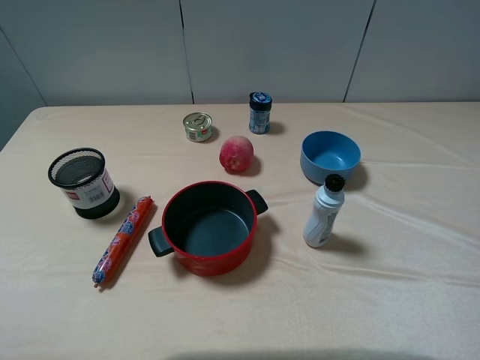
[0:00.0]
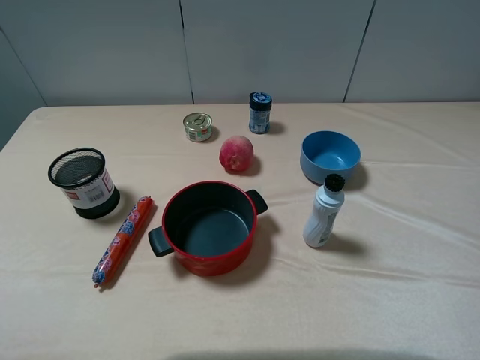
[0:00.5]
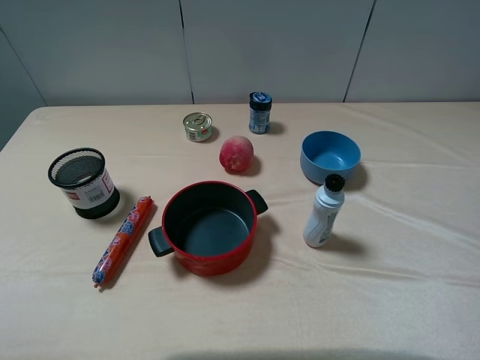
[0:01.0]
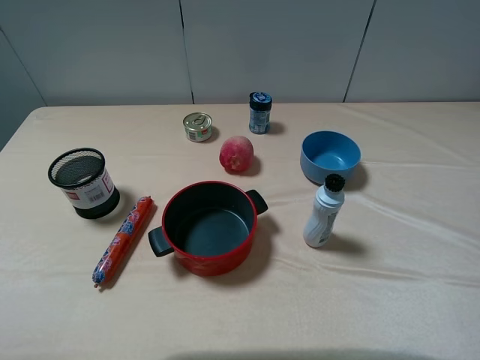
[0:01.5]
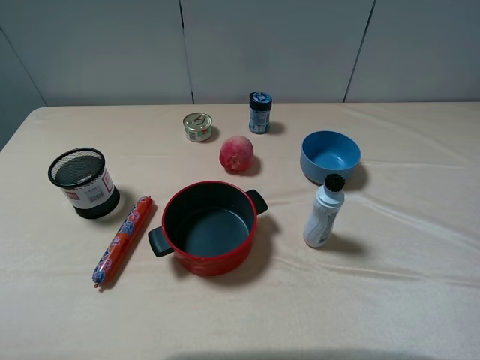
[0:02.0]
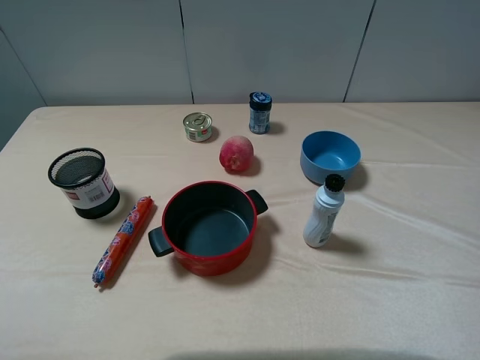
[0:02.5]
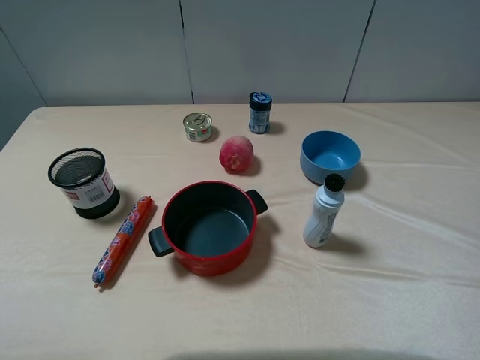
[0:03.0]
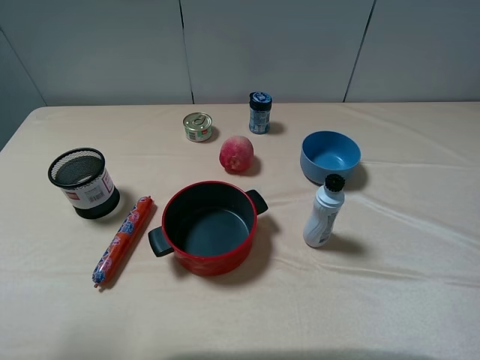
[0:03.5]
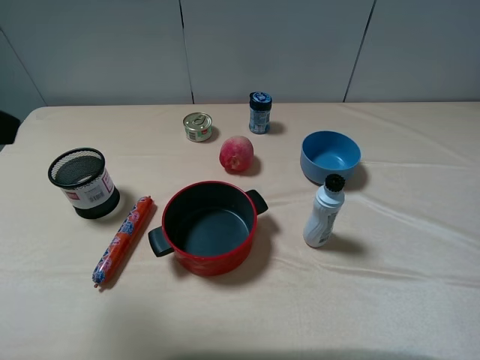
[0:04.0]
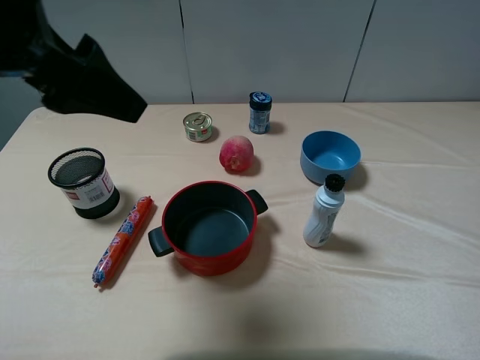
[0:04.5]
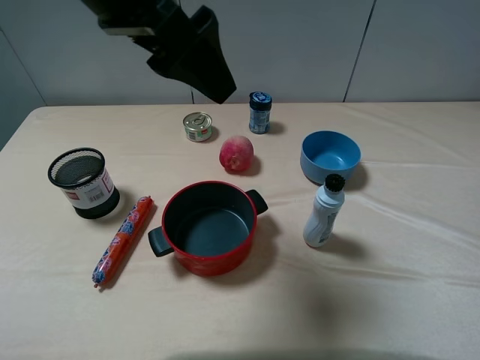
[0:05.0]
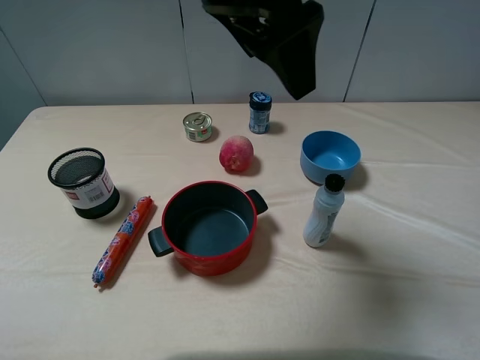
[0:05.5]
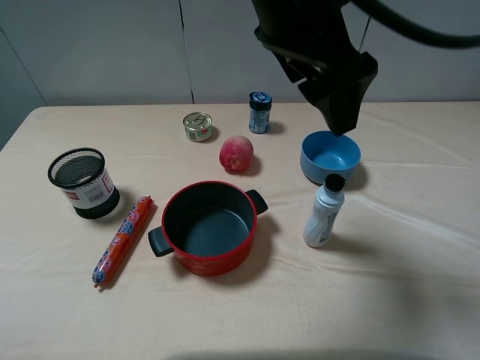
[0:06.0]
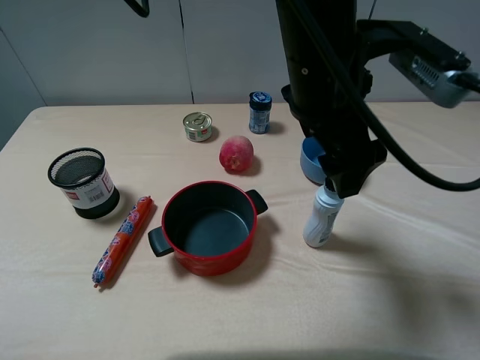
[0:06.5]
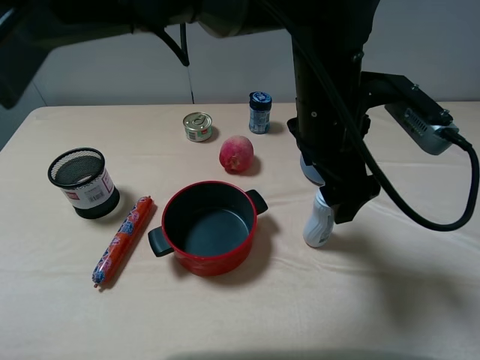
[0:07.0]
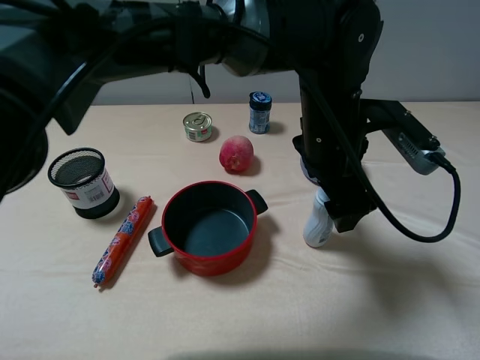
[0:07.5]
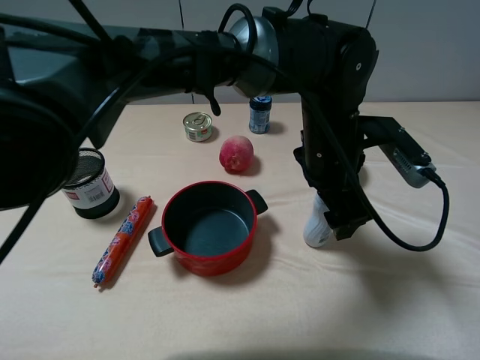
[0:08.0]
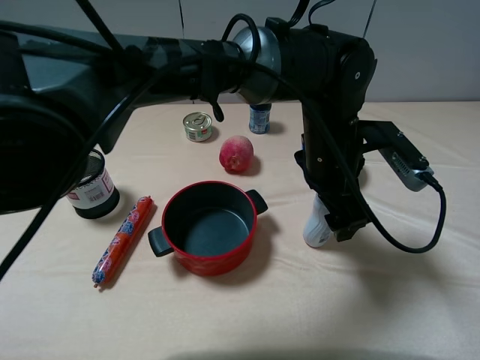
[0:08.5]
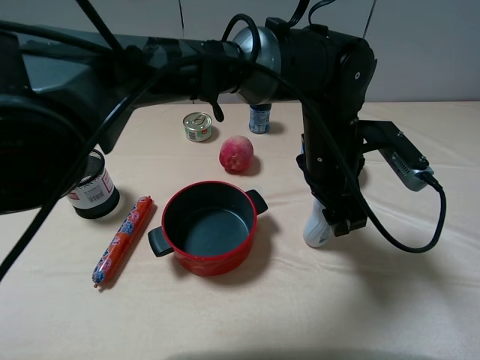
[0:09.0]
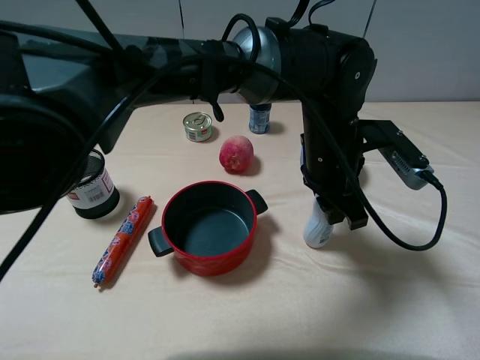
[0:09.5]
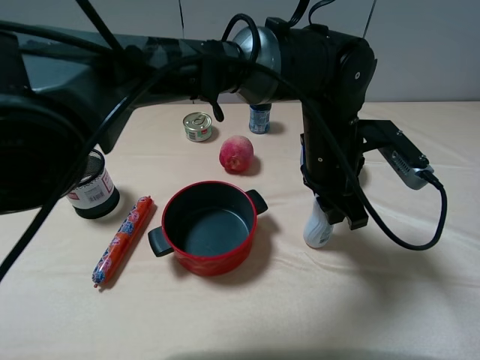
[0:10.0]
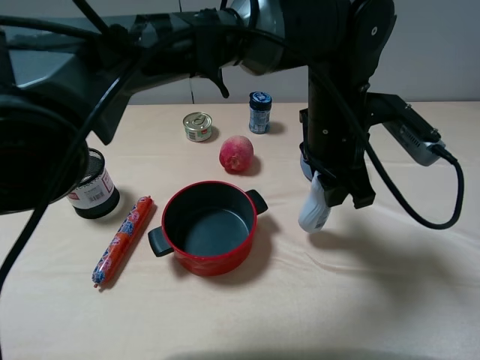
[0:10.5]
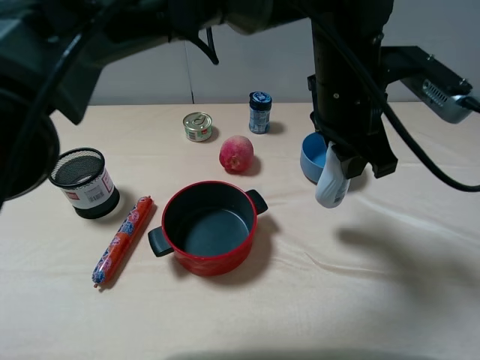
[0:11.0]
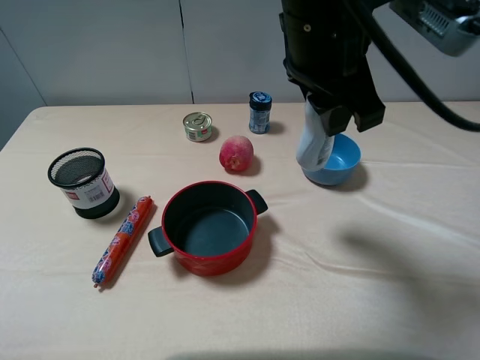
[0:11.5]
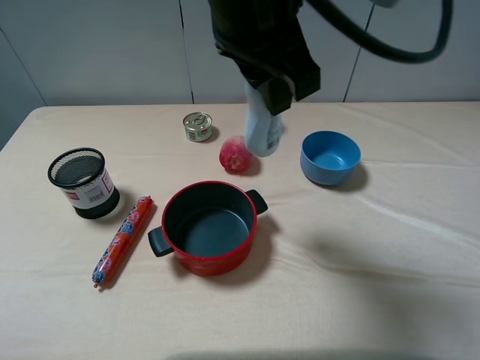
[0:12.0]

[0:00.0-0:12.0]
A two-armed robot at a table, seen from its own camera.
Task of the whole recording: pick up an item with a gripper and place it in a random container on the table.
Step, 0.0 to 9.5 s: Grasp the cleaning agent with the left gripper.
0.0 to 2.0 s: The two grippers keep their place.
2.0 to 4.0 s: The left gripper moves forward and upward, some 15 cm.
4.0 to 6.0 s: The left gripper shifts some 35 cm to the right and forward.
6.0 to 8.0 s: The left gripper travels downward and to the right by about 20 cm.
8.0 to 10.0 s: The left gripper closes.
10.0 to 12.0 s: The left gripper moves upward and to the left, roughly 20 cm.

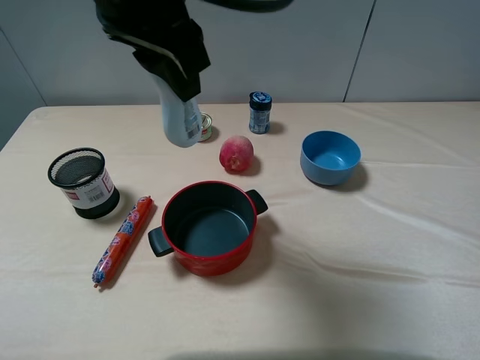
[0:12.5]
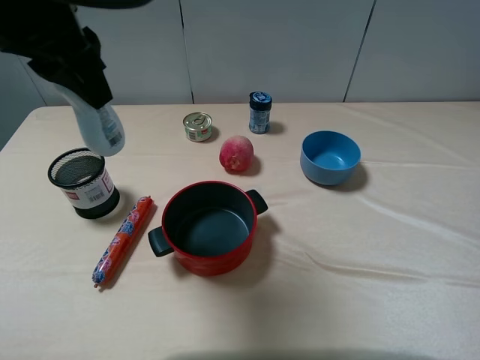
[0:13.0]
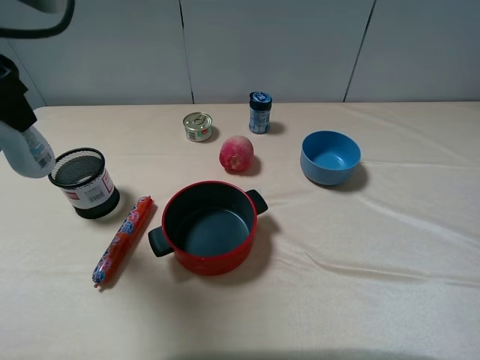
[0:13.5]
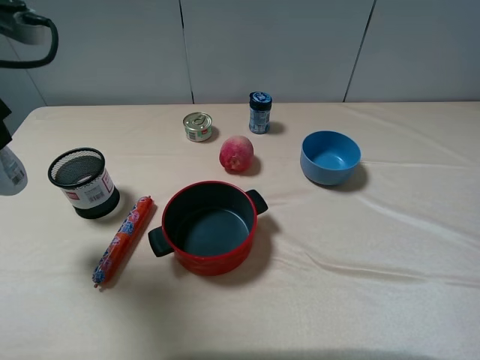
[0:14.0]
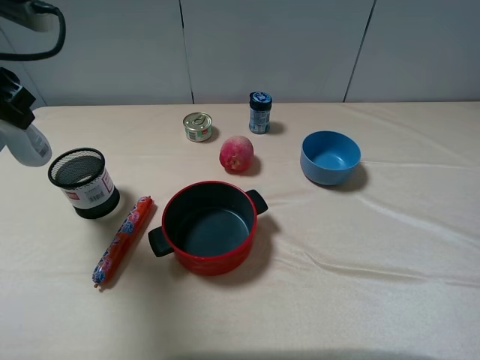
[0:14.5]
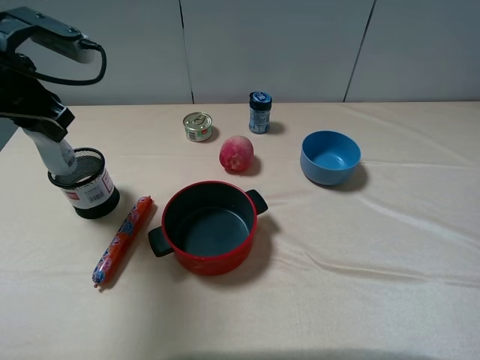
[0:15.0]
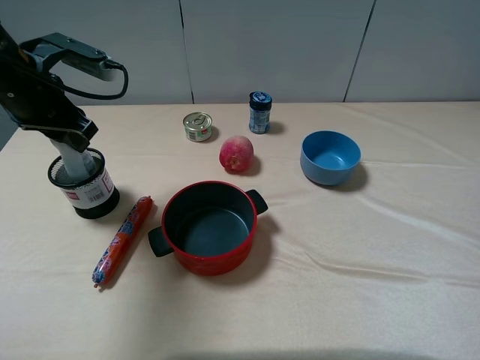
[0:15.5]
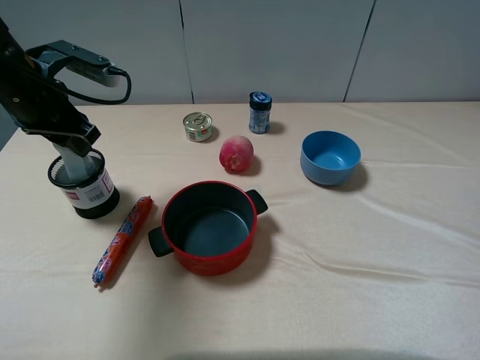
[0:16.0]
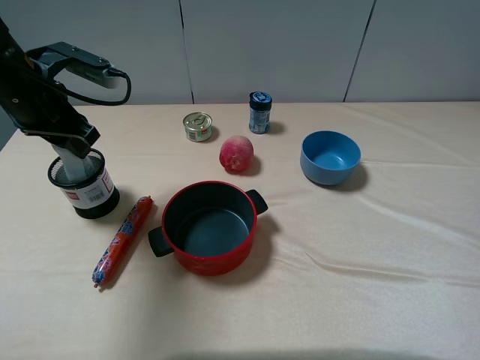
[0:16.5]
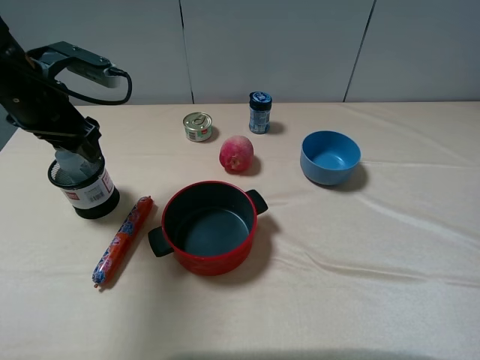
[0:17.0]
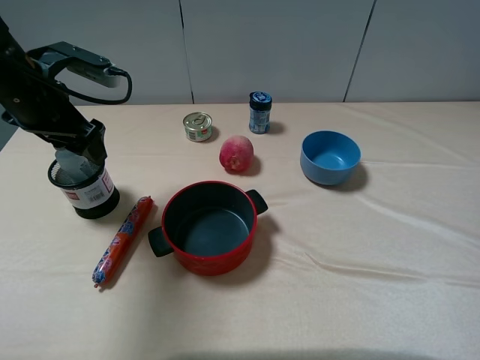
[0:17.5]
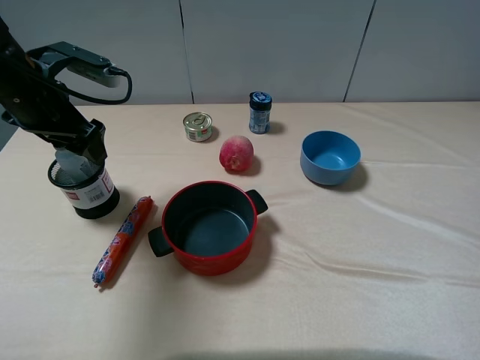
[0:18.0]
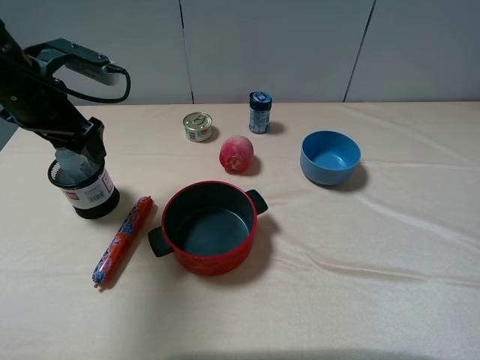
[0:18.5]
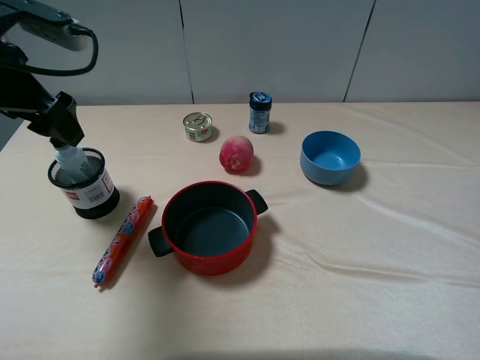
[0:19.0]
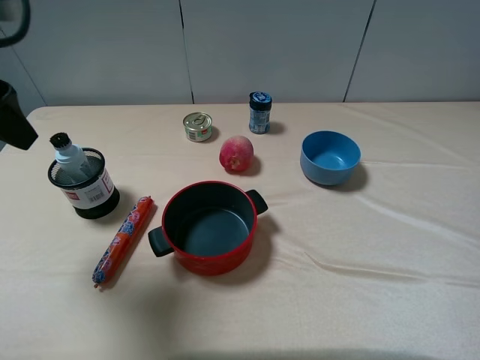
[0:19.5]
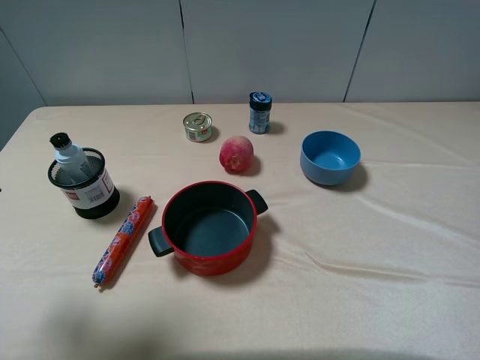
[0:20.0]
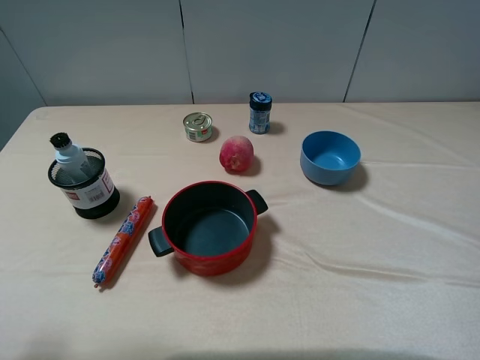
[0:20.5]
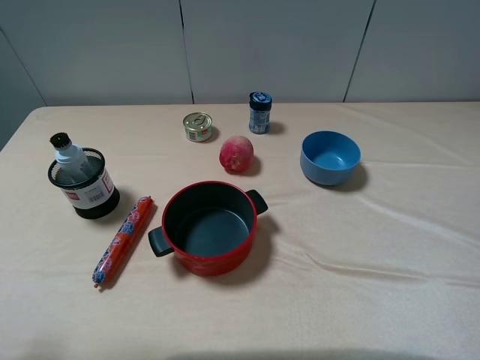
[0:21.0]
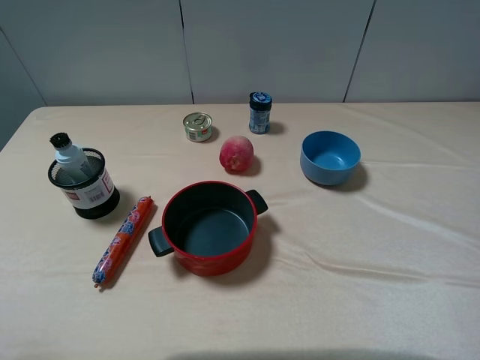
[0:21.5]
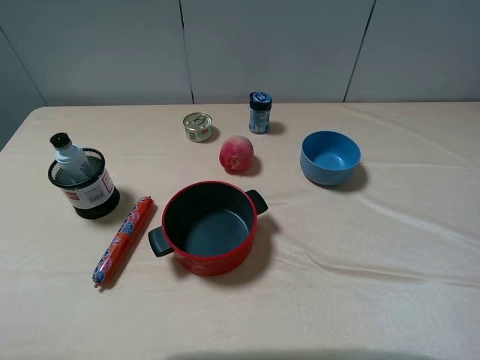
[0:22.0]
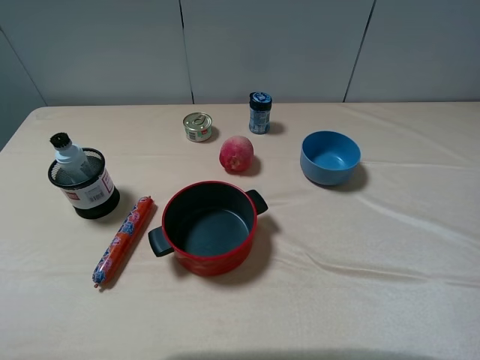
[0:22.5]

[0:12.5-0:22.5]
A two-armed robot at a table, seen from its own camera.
Task of the whole recording: pick up an item with a gripper and place it in a random container on the table.
Step, 12.5 to 17.0 s: Place the cleaning agent into the pen container with the left gripper.
12.5 to 14.5 s: The left gripper goes approximately 20 cm to the left.
14.5 to 16.5 s: The left gripper travels downward and forward by about 10 cm.
16.5 to 18.5 s: The left gripper opens up.
18.5 to 20.5 s: The left gripper travels backward by roughly 25 cm.

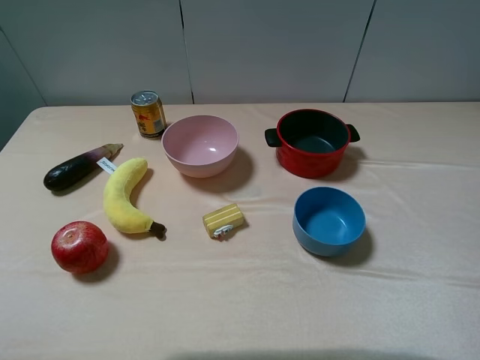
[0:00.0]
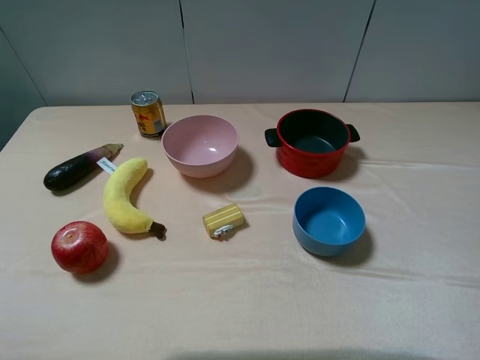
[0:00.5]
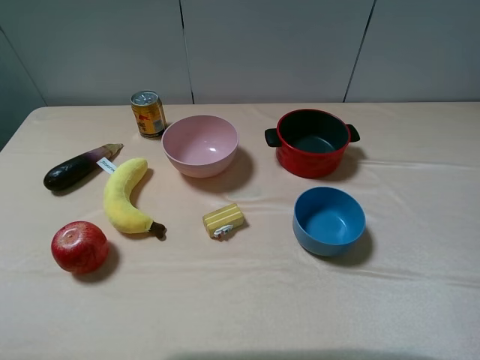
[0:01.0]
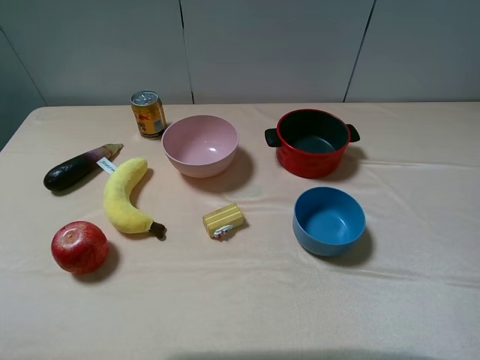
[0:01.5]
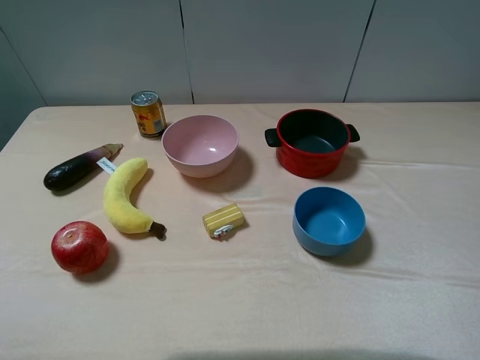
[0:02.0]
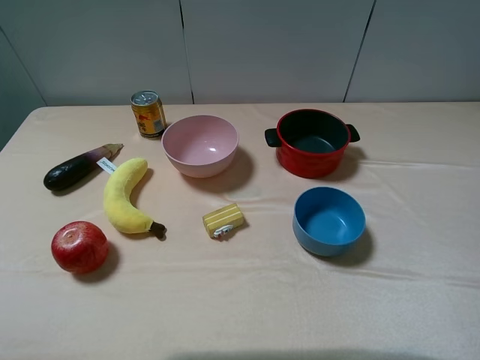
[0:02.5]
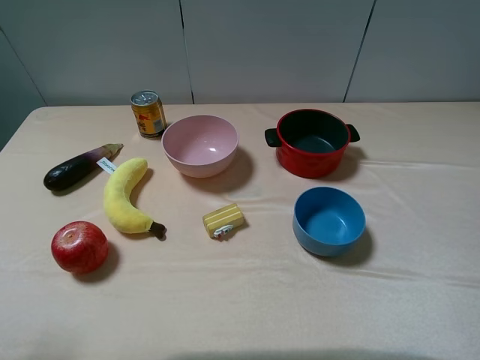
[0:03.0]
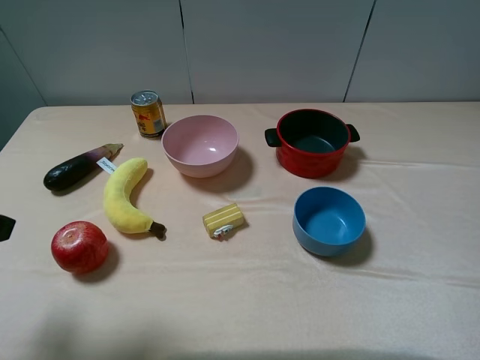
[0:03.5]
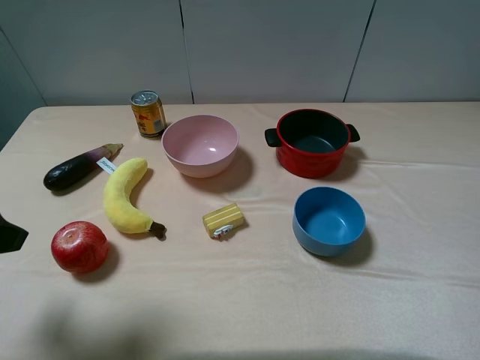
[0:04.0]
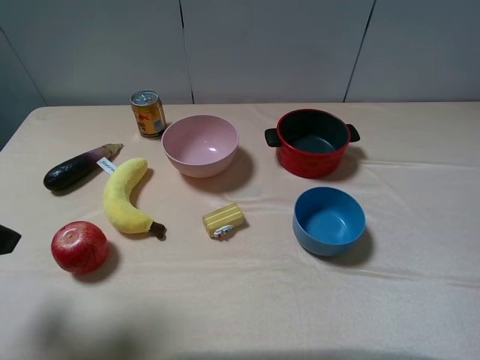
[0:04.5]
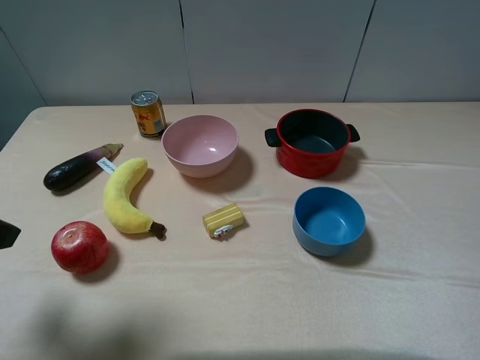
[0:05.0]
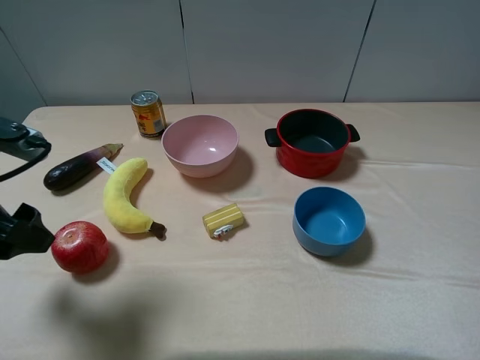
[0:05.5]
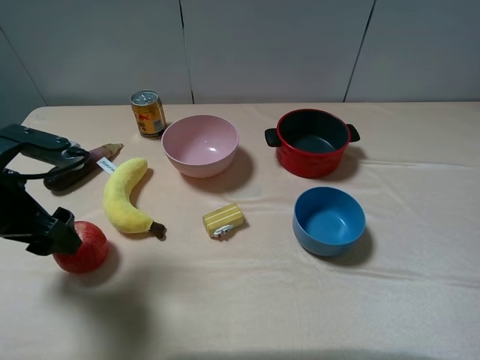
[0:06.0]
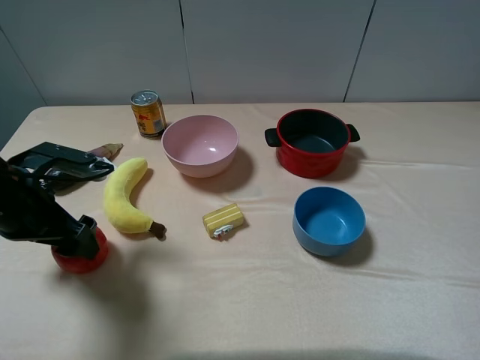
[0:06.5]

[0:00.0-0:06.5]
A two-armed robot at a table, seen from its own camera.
Task of the whole recording: pick up an item with a gripper and place it in a random container on the table.
0.0 to 2.0 s: Neither gripper changes place.
2.0 to 4.5 s: The left gripper travels forward by about 10 cm.
4.5 to 6.5 s: The left gripper shifts roughly 15 cm downward and forward.
